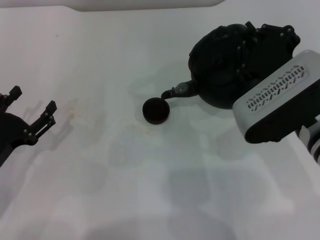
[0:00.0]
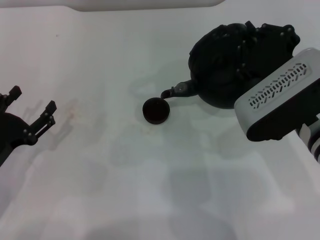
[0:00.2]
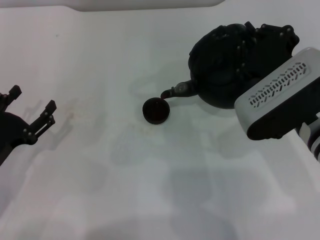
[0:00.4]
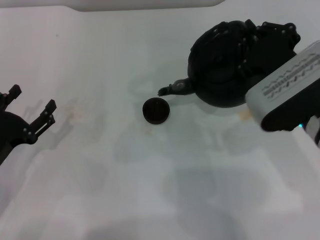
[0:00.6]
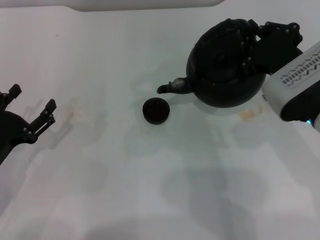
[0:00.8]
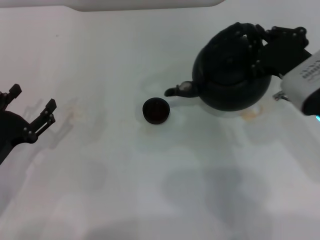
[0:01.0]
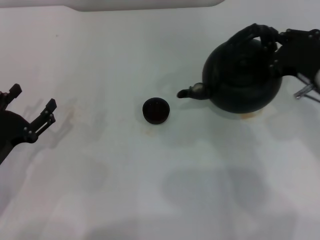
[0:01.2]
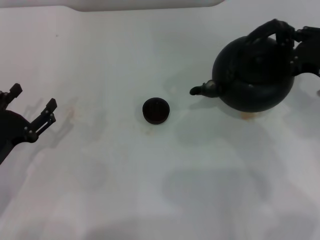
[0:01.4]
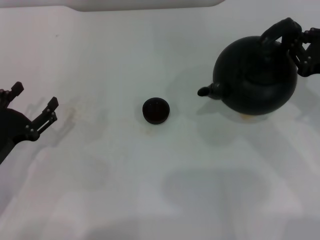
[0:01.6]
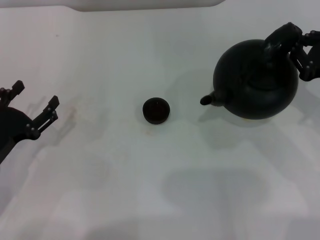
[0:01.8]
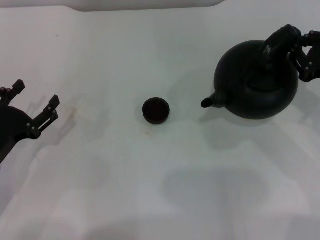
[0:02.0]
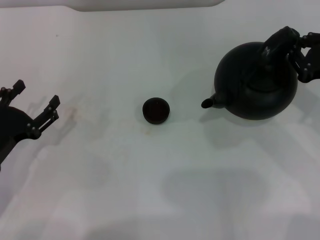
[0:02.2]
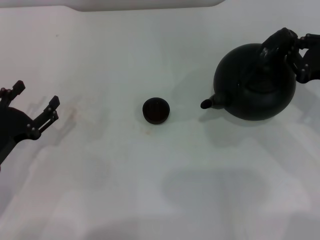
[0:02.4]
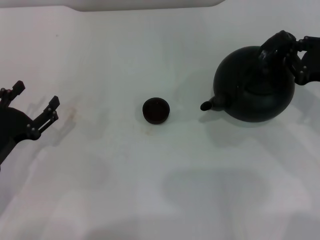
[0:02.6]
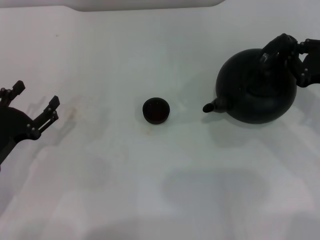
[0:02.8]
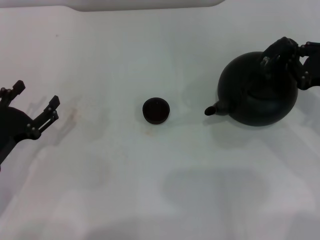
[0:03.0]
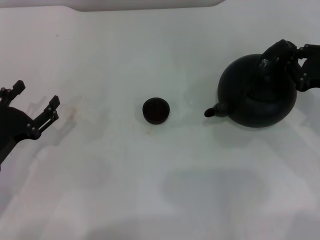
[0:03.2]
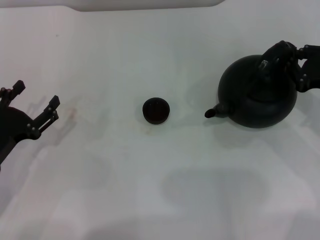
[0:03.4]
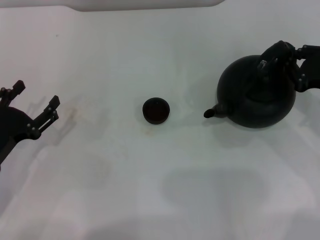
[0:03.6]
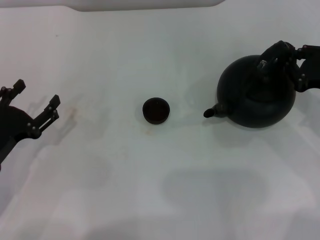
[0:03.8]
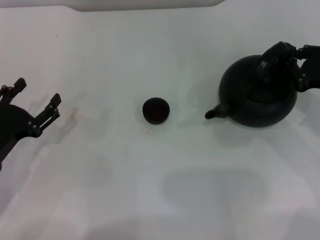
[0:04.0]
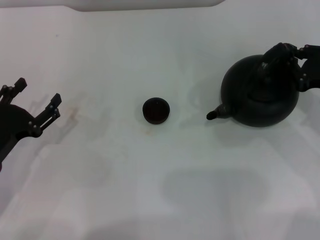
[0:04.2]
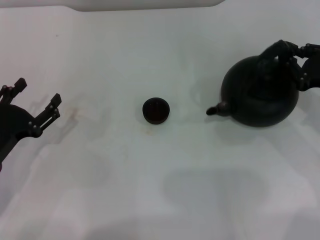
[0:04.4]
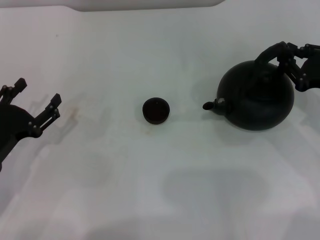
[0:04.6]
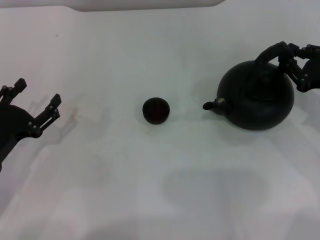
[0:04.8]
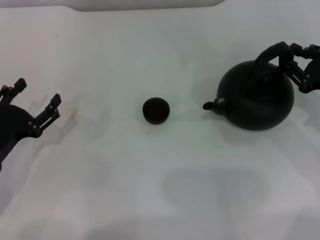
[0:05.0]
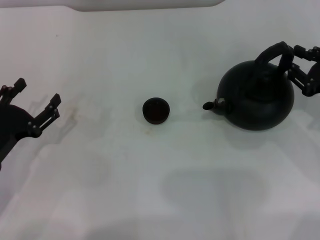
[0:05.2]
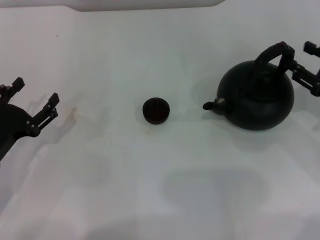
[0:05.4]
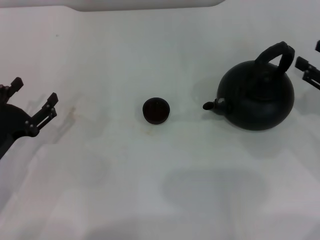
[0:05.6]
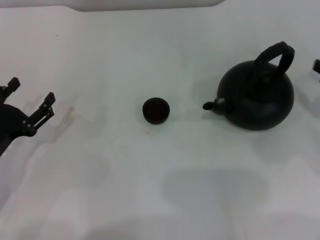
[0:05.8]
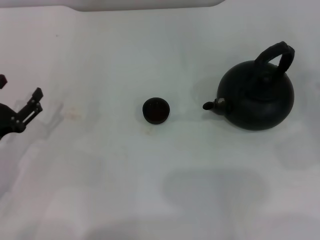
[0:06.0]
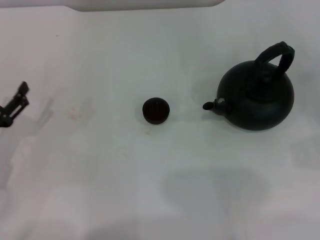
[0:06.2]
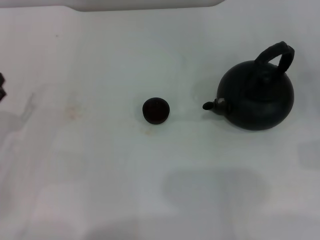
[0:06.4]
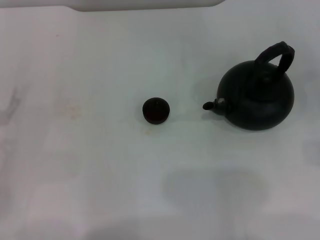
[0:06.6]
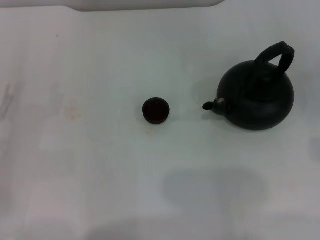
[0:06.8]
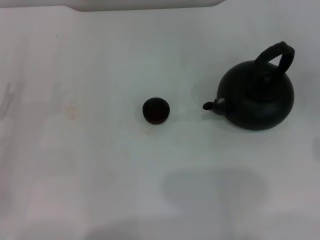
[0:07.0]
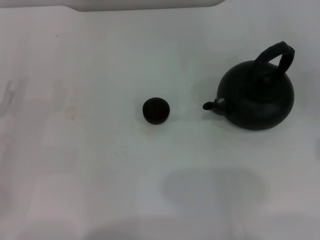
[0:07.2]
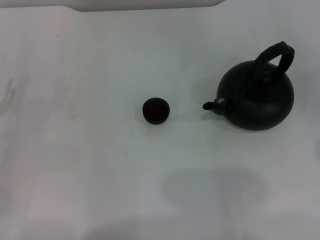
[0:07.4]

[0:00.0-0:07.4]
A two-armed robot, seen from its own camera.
Task of the whole recording: Grasp the handle of the teapot with one hand and pour tea into the teacup.
Step, 0:01.0 to 0:05.4: Put down the teapot with the right gripper.
0:00.0 to 0:01.4: The right gripper is displaced to the right by approximately 10 cm.
0:01.4 to 0:03.0: The right gripper ends up approximately 5 cm from where it was.
0:03.0 to 0:04.4: The two grippers keep their place.
0:04.4 to 0:06.0: The right gripper heads to the right and backward, covering some 10 cm, and opens up.
0:06.0 to 0:07.4: The left gripper changes place by roughly 5 cm.
